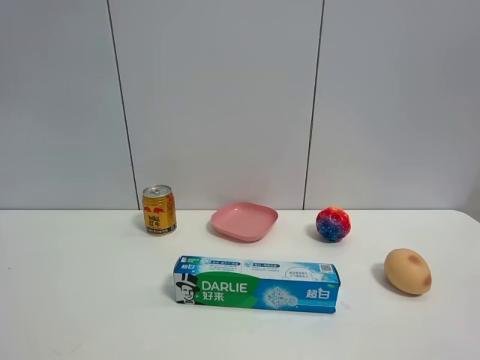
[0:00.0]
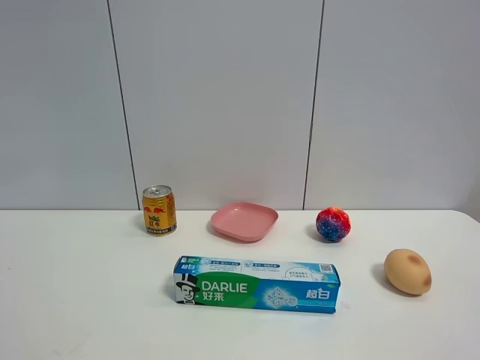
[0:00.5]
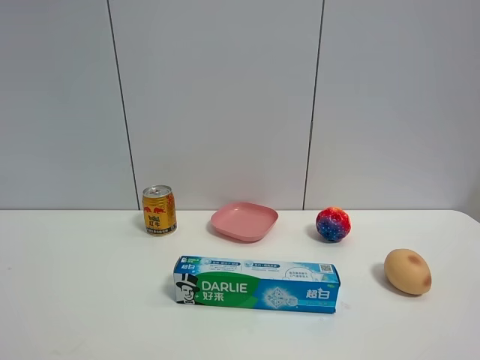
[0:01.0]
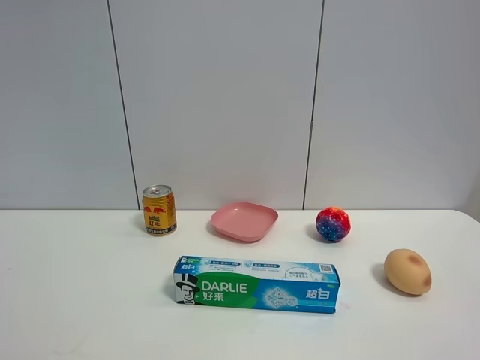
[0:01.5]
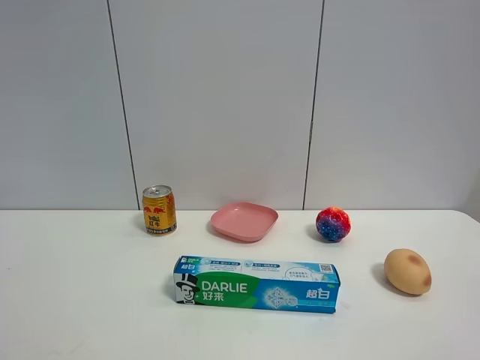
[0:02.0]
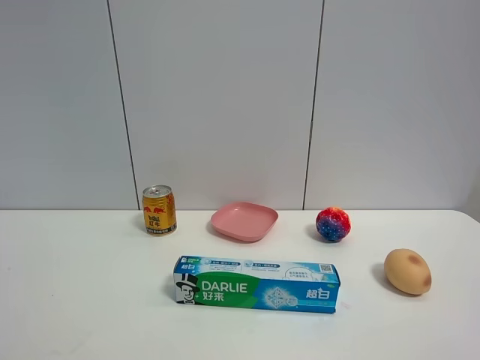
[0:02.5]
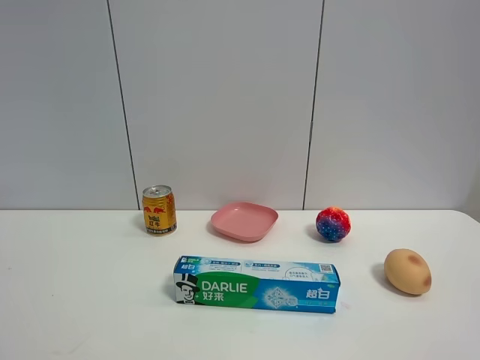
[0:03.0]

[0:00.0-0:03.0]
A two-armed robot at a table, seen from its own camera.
Task of the whole recording: the gripper move the object.
0:01.5 to 0:03.0: Neither gripper changes place.

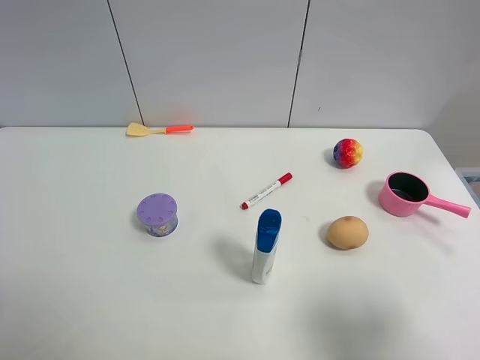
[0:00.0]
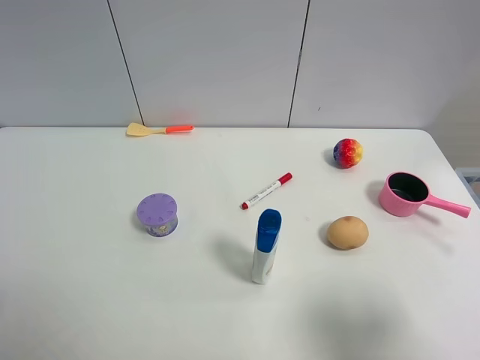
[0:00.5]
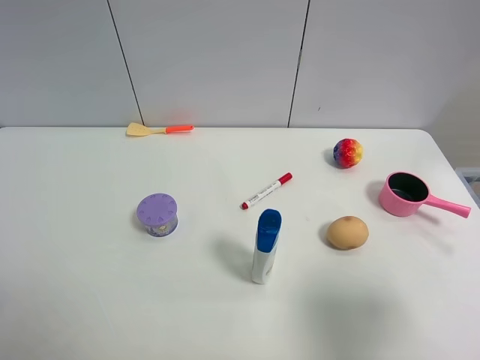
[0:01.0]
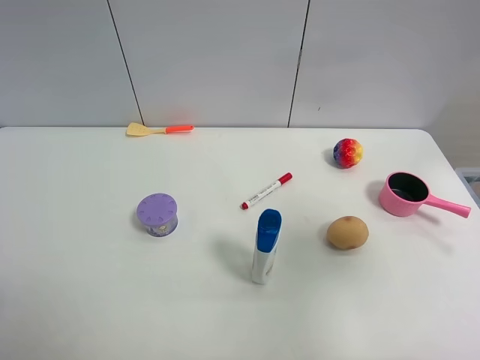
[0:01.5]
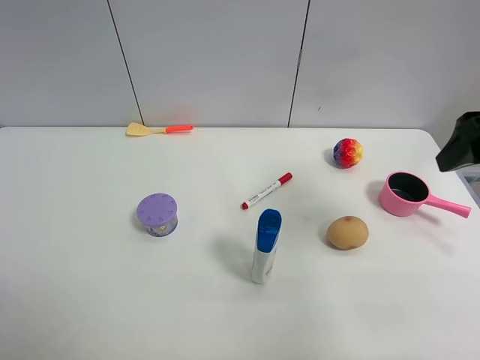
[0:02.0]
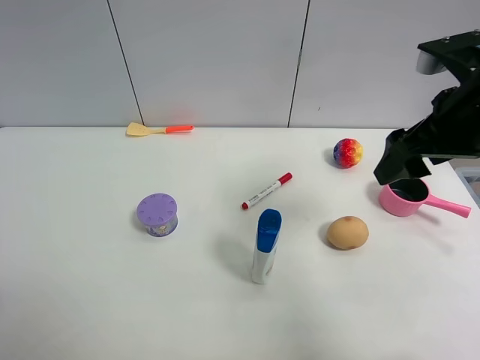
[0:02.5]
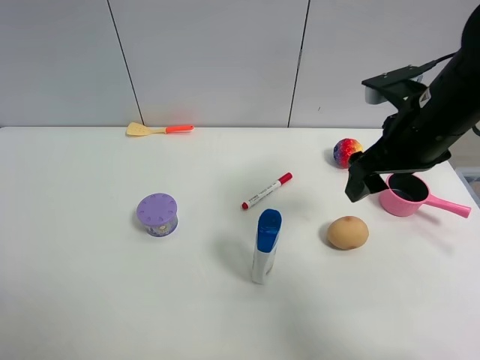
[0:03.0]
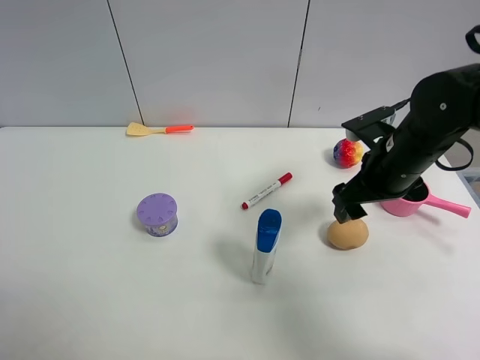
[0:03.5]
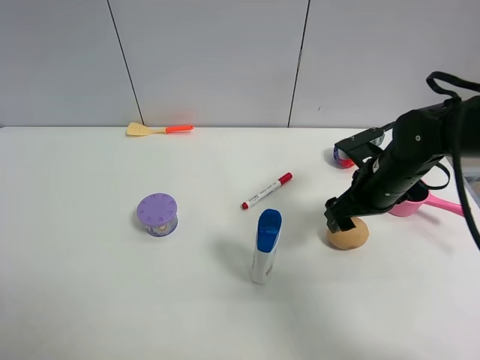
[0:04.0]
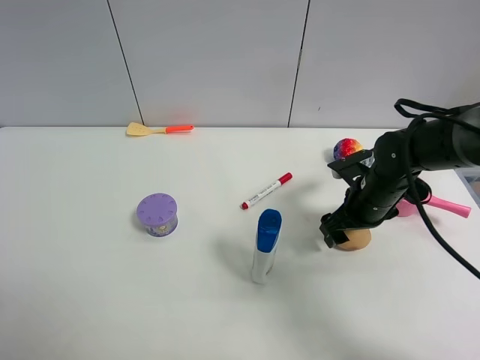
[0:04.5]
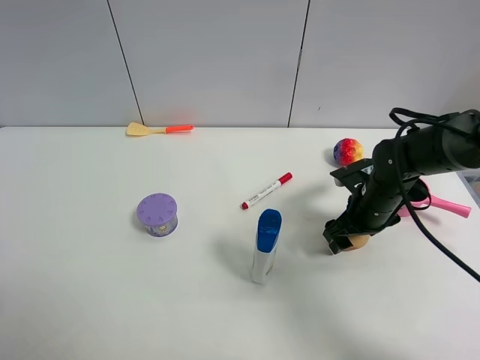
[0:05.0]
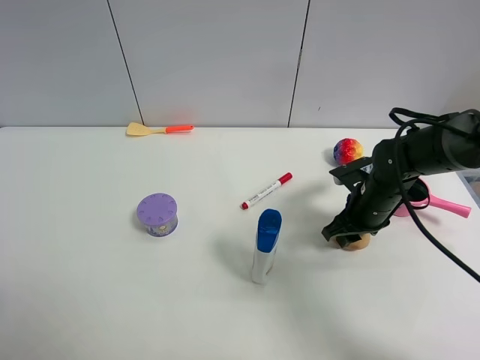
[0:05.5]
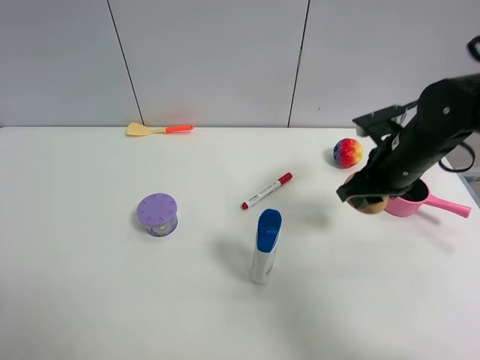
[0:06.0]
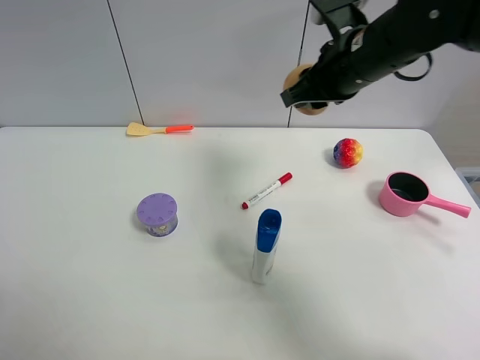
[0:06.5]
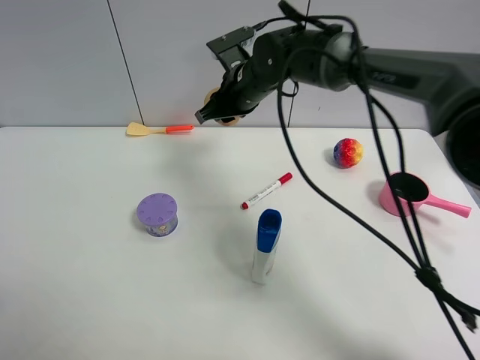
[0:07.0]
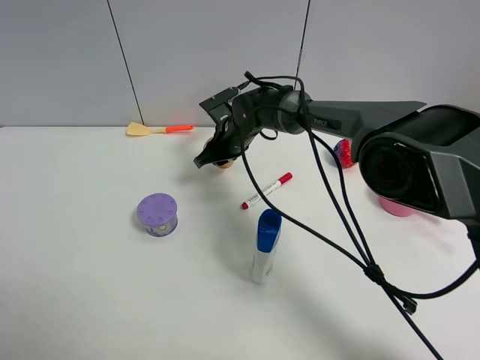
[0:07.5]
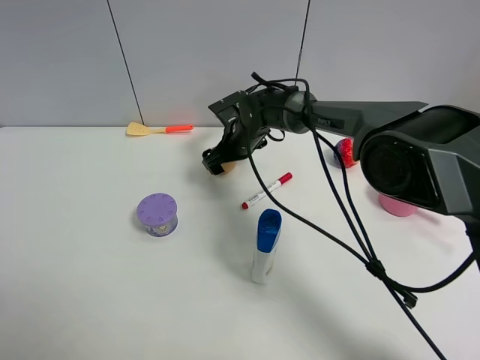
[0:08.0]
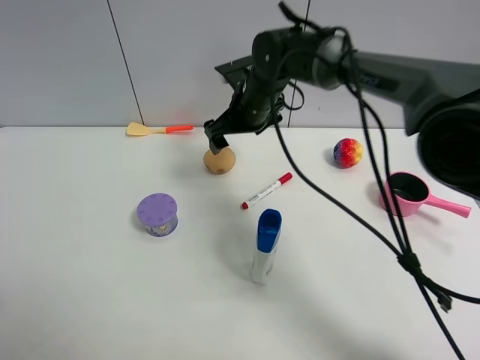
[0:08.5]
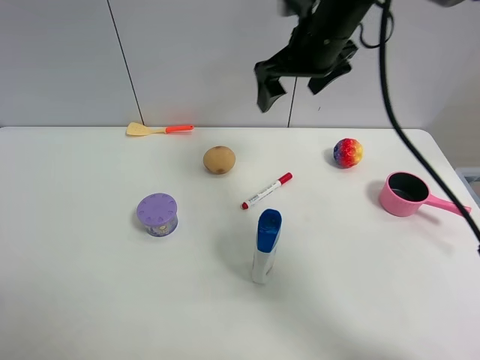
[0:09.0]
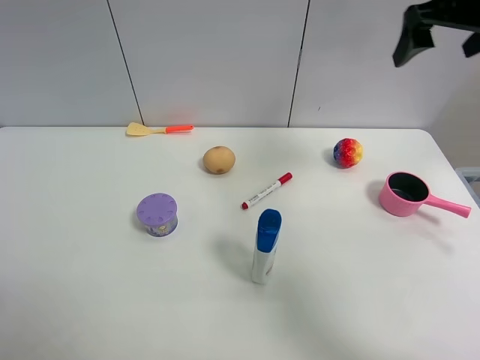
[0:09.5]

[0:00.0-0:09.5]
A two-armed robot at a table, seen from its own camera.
Task of the whole recording: the gripper move the object.
Step, 0:00.0 to 0:05.0: Grasp the egg yolk pastry with the right gripper.
Step, 0:05.5 to 0:08.0: Place the egg yolk pastry on the table with the right gripper.
0:00.0 to 0:02.0: The right gripper is displaced forward by about 20 cm.
0:02.0 to 0:04.0: The right gripper heads downward and to the left, covering approximately 20 cm.
0:04.0 to 0:05.5: The right gripper goes approximately 5 cm downward, and closes up.
0:05.5 to 0:07.5: The right gripper moves to the left and forward, approximately 25 cm.
0:07.5 to 0:09.5: The right gripper heads upward and to the right, covering approximately 40 cm, and opens.

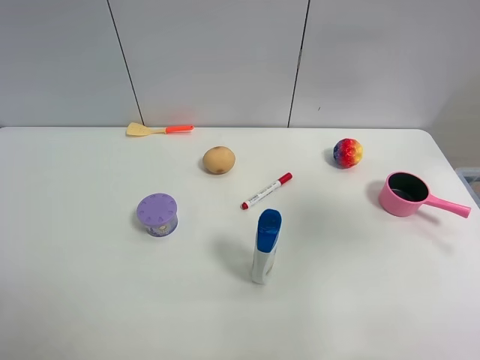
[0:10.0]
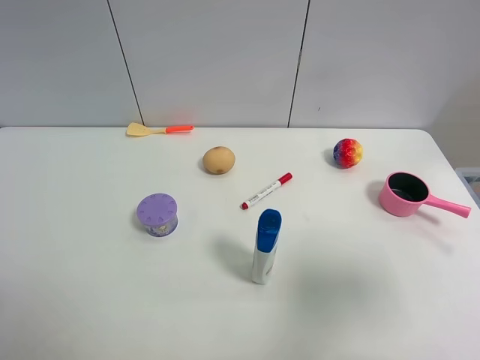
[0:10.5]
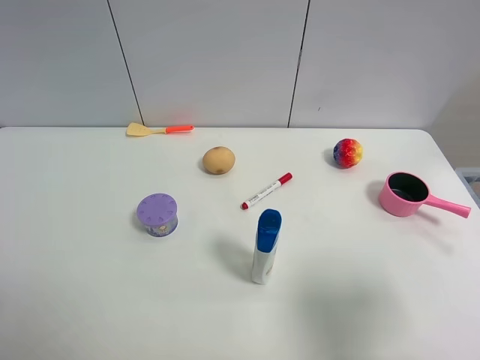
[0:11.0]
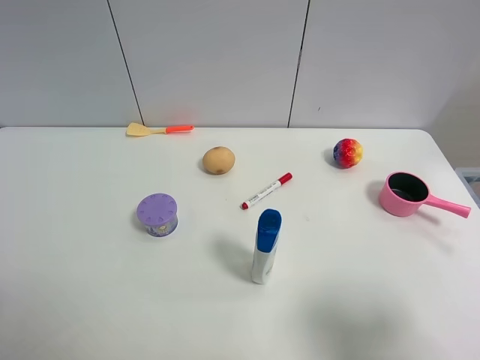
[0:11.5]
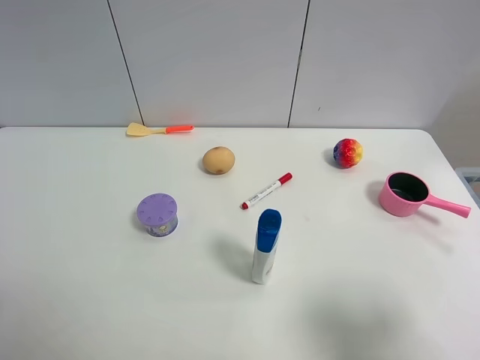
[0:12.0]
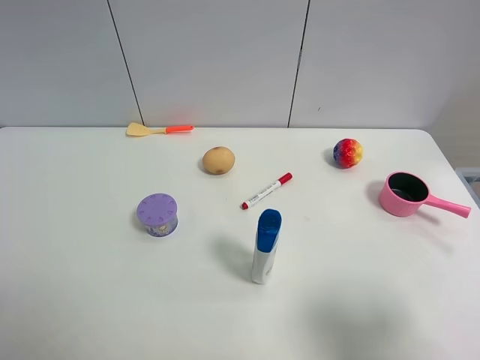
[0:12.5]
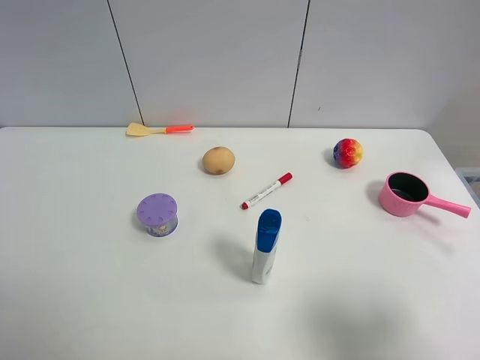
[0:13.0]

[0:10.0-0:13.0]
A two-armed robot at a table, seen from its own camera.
Task of the whole recording: the gripper move the object.
0:10.0 to 0:11.5: The right gripper shifts some 20 cm backward and downward.
0:11.5 to 0:13.0: Both grippers stay put.
